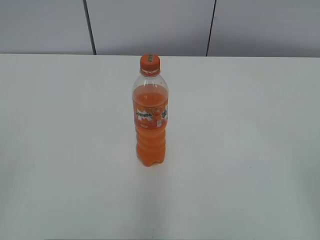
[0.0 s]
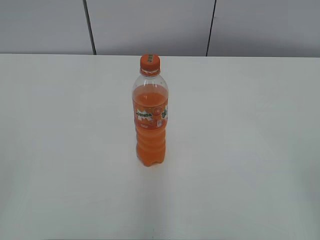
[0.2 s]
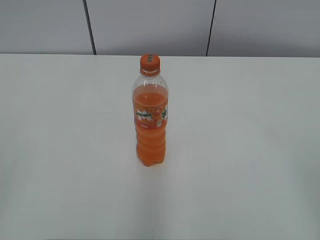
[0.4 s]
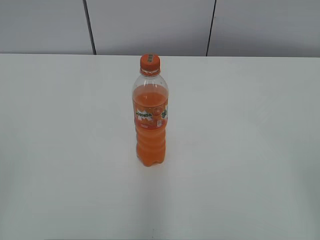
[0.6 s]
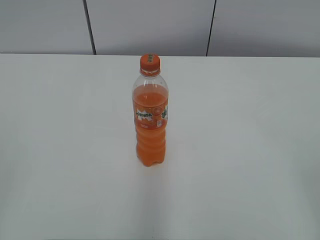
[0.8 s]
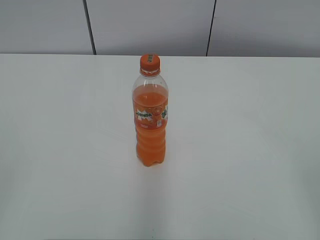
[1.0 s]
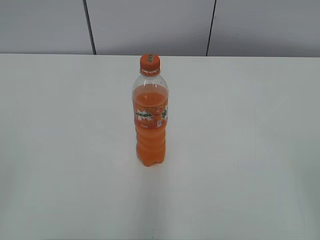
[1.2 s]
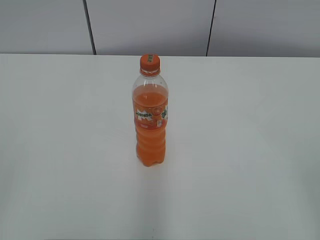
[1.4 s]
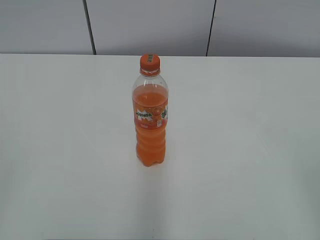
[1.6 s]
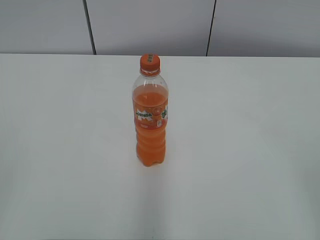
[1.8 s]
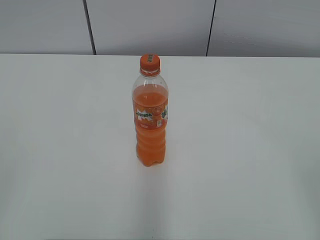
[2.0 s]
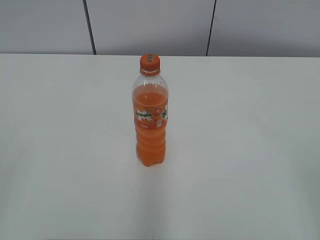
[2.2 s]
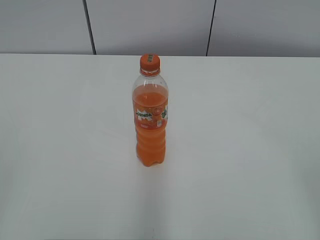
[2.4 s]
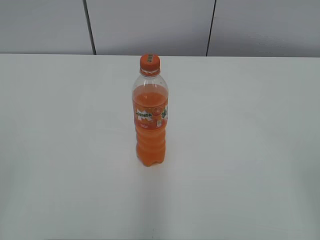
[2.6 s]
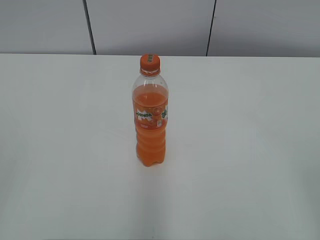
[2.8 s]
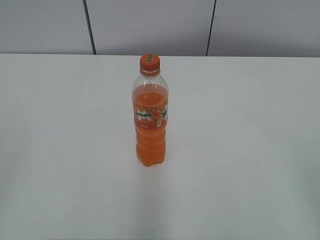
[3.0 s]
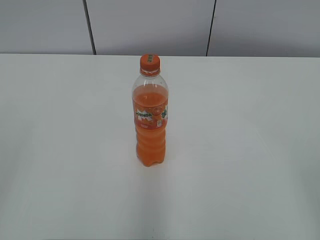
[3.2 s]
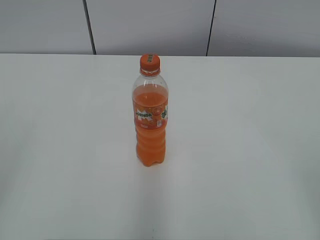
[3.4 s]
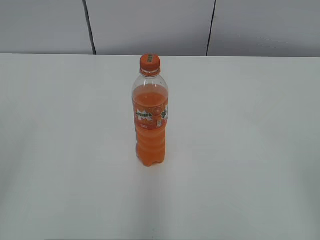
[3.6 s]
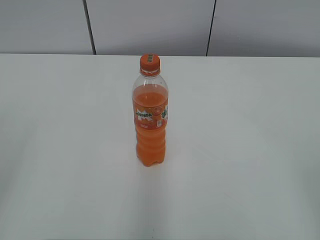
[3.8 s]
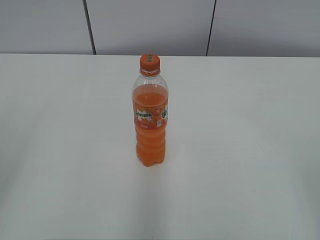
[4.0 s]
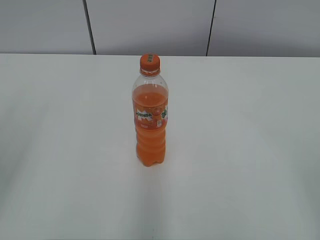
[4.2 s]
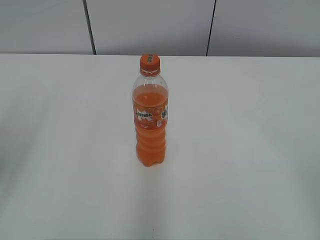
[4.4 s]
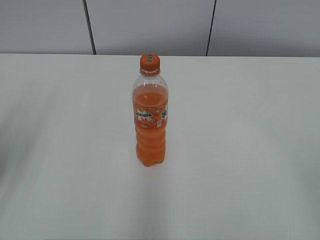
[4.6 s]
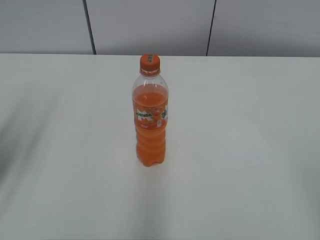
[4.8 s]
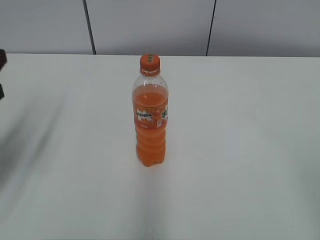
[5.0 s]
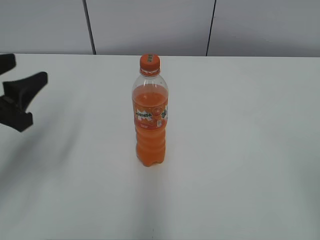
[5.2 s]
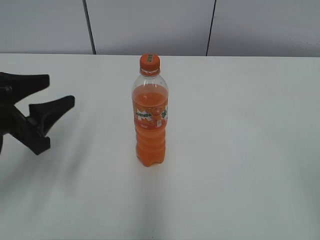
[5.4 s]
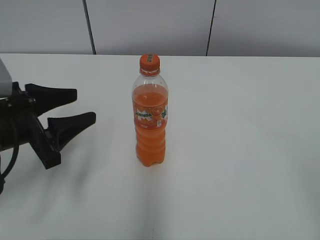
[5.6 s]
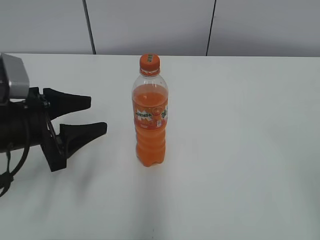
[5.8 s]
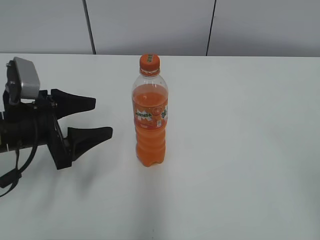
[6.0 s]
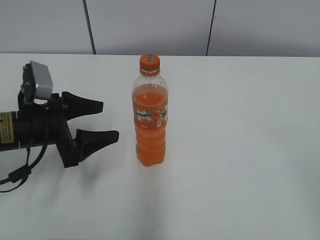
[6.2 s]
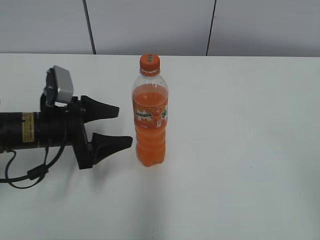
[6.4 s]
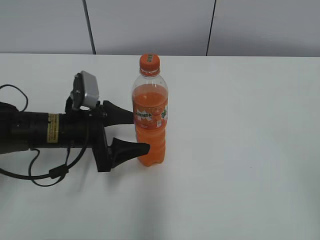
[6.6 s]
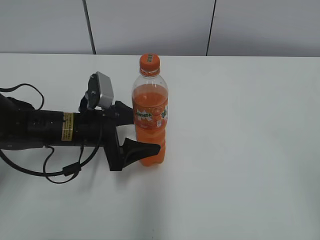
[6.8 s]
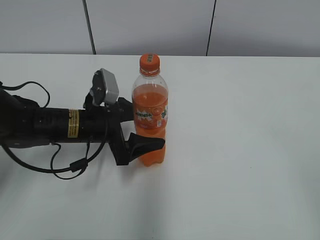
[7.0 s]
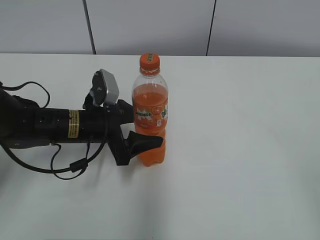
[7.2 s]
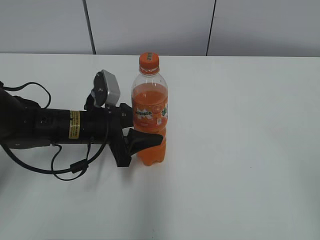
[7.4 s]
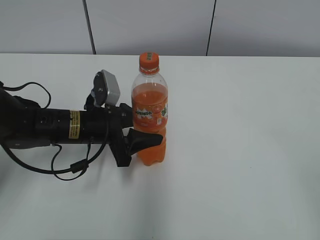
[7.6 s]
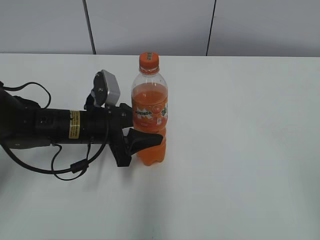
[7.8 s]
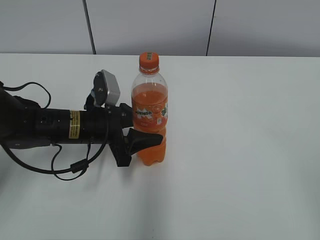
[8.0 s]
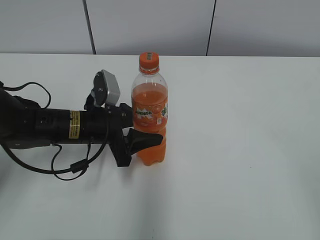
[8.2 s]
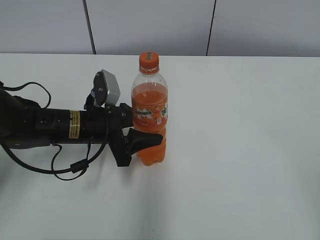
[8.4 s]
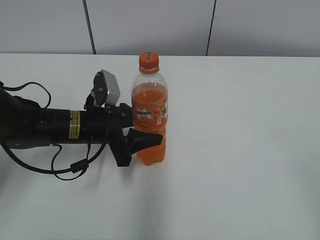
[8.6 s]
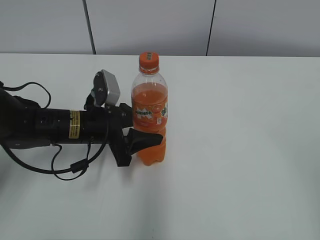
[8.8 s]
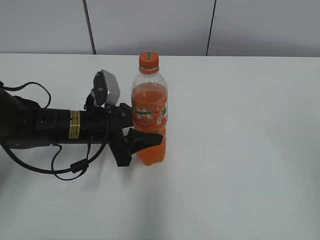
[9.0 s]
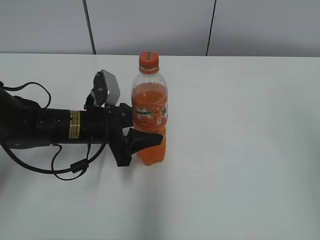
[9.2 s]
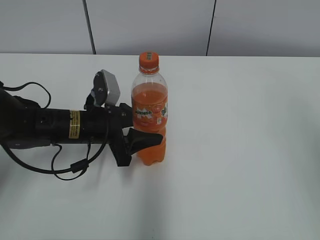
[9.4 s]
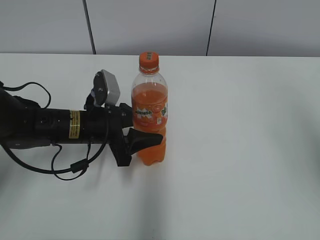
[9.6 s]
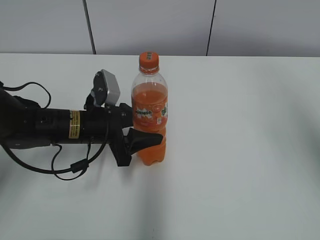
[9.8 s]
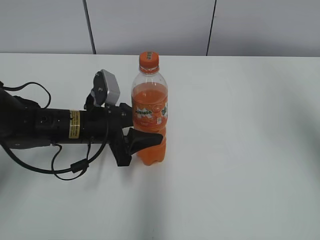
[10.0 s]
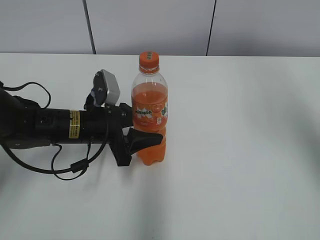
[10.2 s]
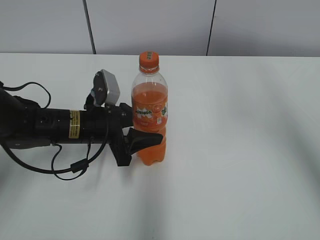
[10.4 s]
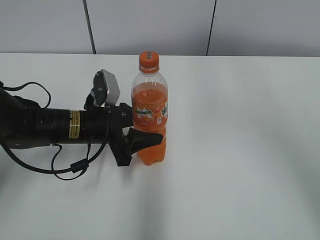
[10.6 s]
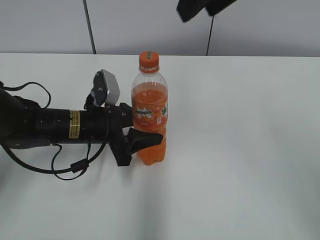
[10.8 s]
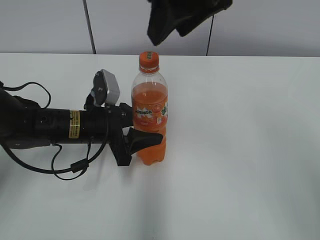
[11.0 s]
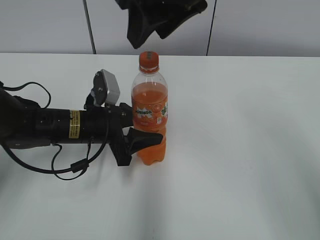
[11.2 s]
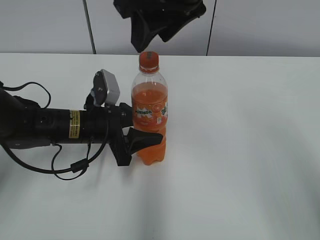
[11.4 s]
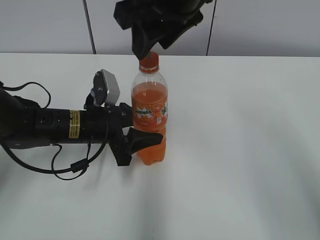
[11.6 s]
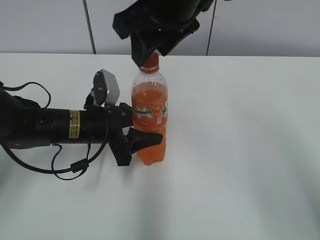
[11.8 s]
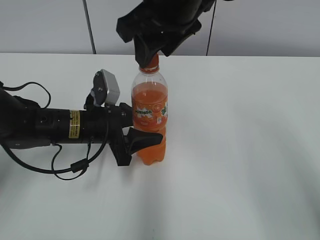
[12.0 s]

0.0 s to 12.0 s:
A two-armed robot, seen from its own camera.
Step, 0.0 to 7.4 s: Grab the Mirinda with the left hand.
4.4 to 6.0 s: The left gripper is displaced downward, forward and to the right by about 20 cm, and opens up.
6.0 to 7.6 s: The left gripper shifts approximately 10 cm to the right and forward, and closes up.
10.4 to 12.0 s: The right gripper is displaced to the left and downward by some 20 cm.

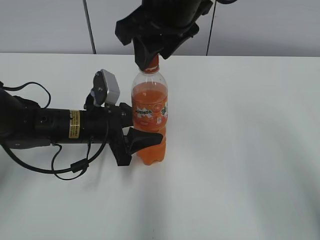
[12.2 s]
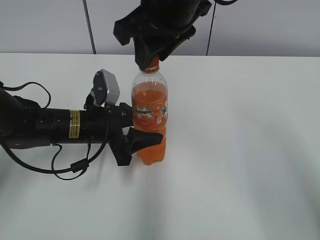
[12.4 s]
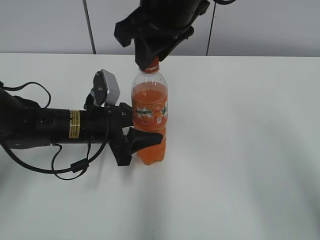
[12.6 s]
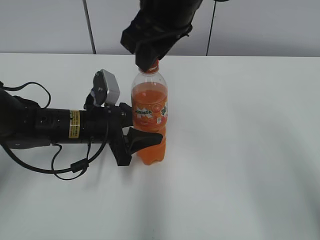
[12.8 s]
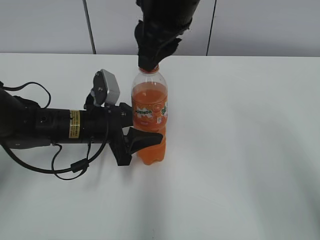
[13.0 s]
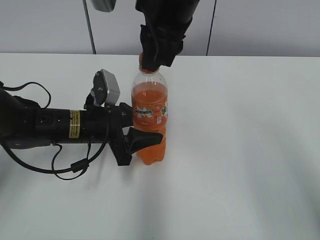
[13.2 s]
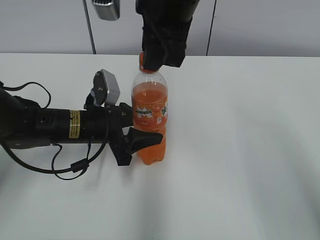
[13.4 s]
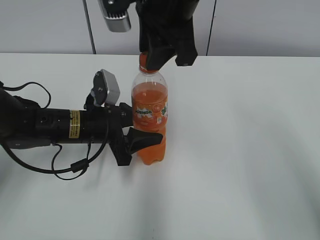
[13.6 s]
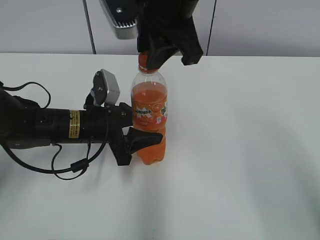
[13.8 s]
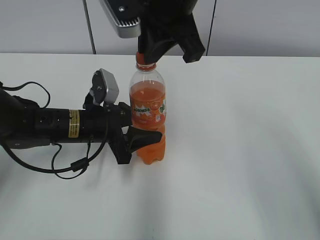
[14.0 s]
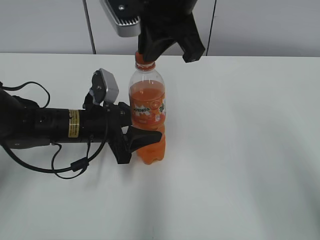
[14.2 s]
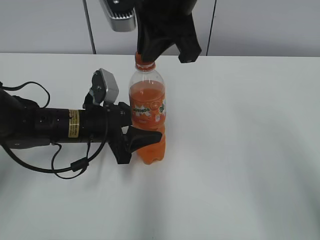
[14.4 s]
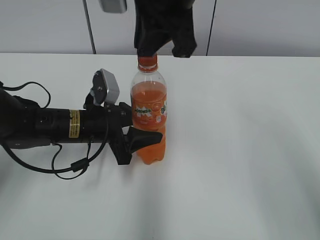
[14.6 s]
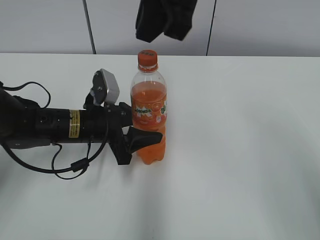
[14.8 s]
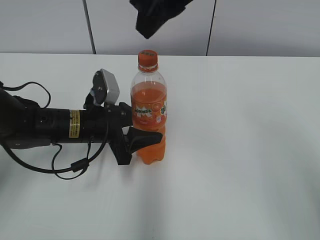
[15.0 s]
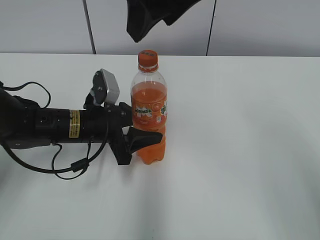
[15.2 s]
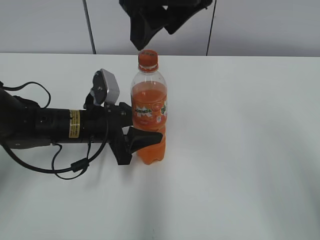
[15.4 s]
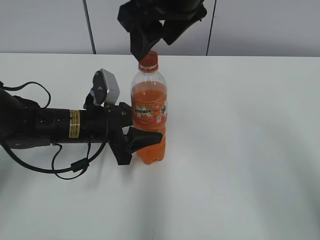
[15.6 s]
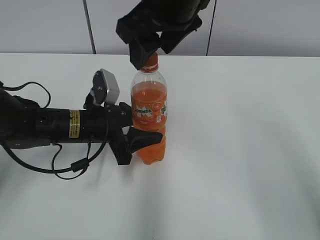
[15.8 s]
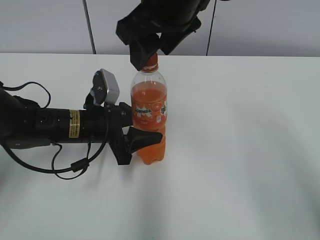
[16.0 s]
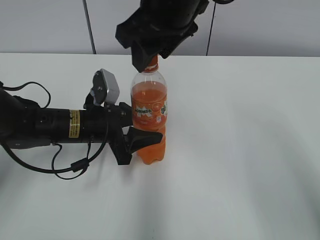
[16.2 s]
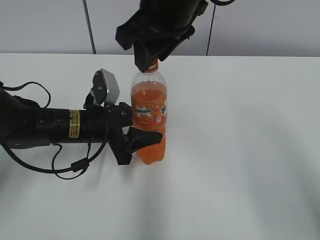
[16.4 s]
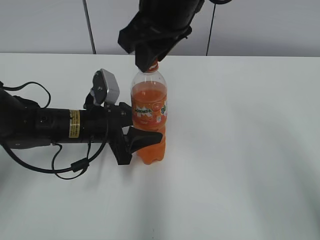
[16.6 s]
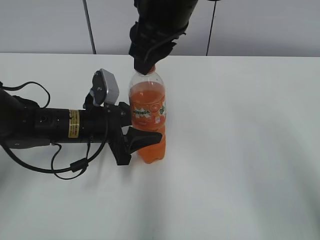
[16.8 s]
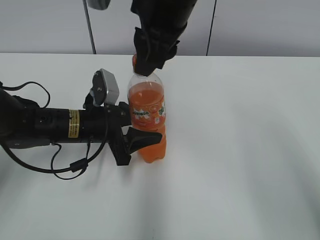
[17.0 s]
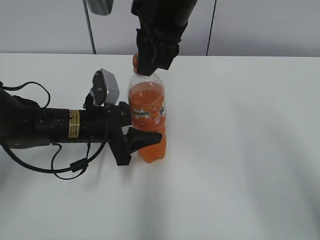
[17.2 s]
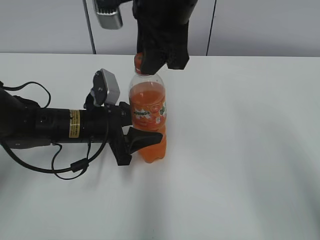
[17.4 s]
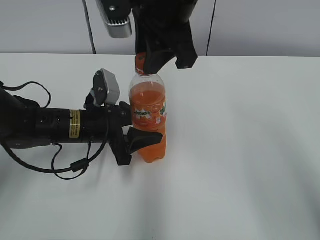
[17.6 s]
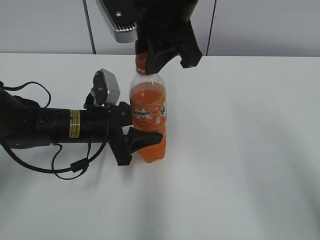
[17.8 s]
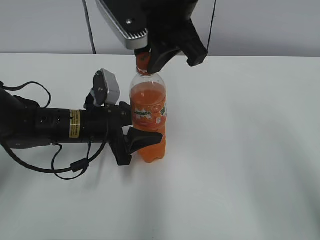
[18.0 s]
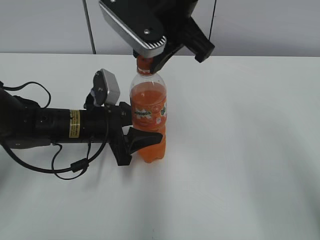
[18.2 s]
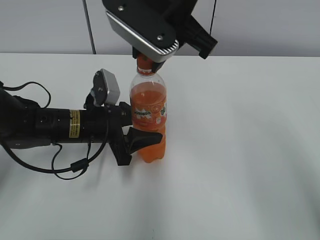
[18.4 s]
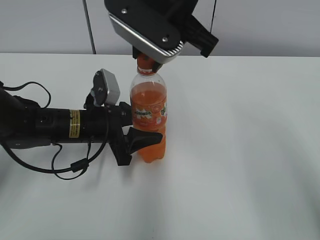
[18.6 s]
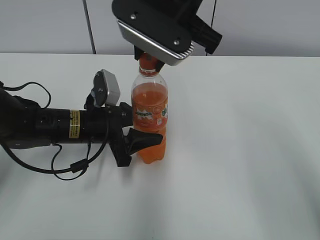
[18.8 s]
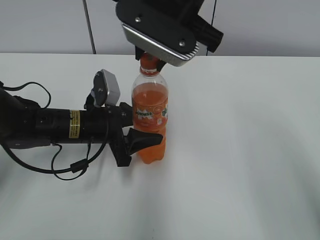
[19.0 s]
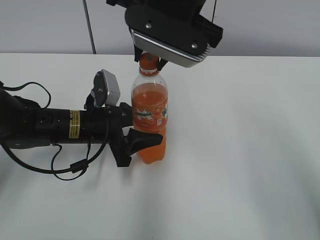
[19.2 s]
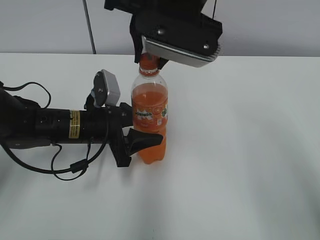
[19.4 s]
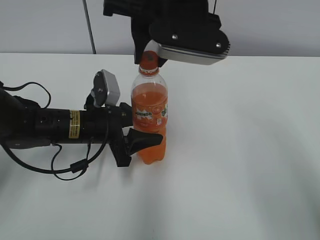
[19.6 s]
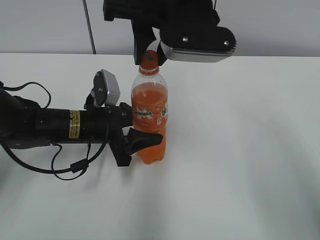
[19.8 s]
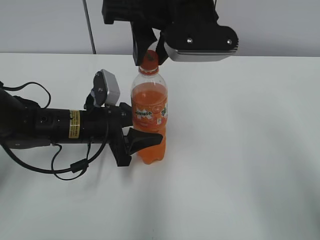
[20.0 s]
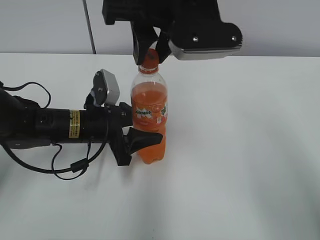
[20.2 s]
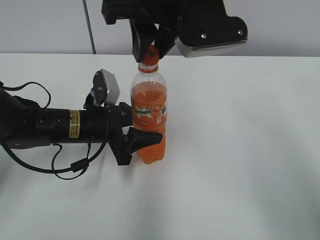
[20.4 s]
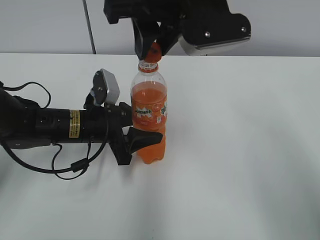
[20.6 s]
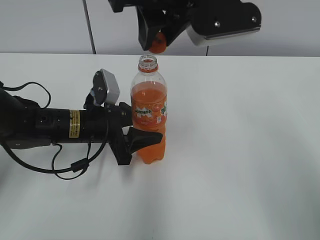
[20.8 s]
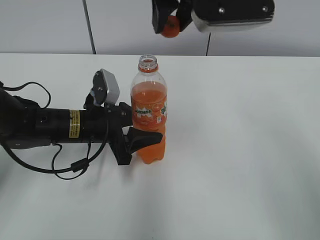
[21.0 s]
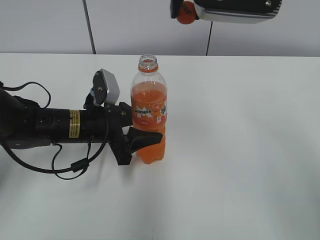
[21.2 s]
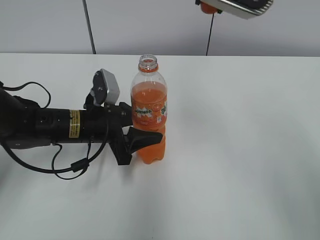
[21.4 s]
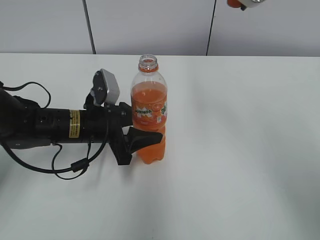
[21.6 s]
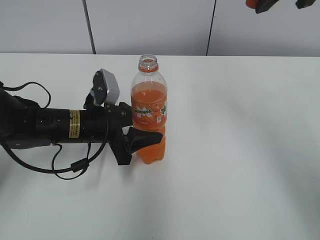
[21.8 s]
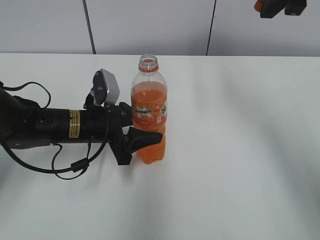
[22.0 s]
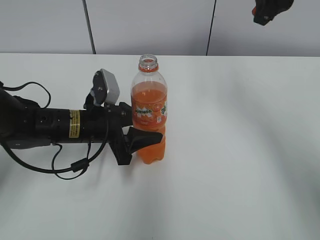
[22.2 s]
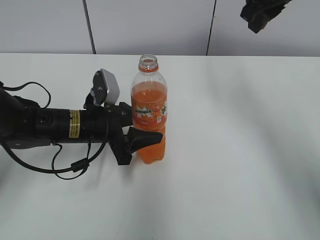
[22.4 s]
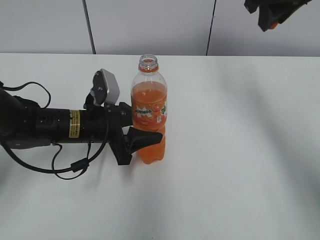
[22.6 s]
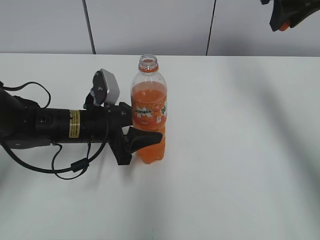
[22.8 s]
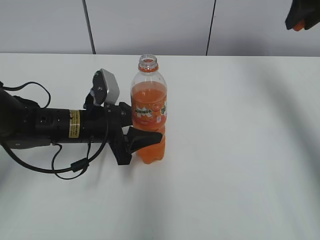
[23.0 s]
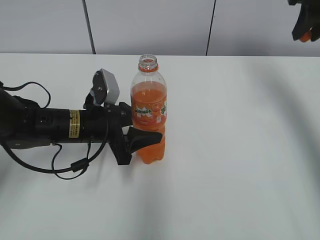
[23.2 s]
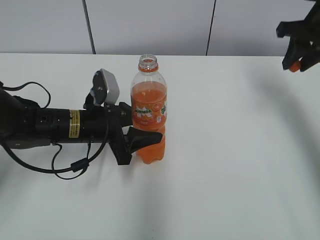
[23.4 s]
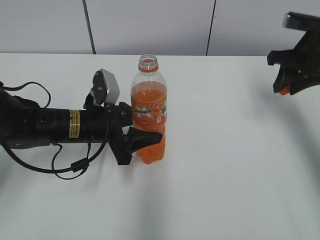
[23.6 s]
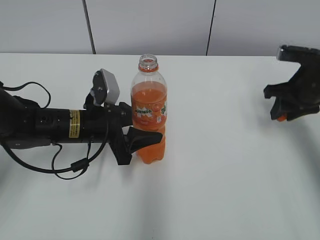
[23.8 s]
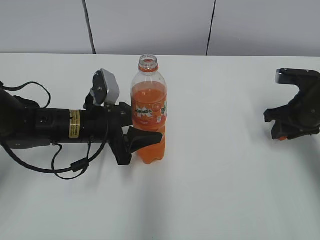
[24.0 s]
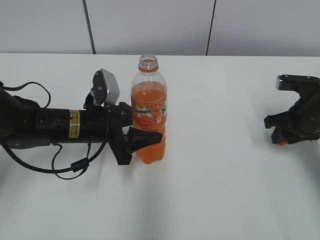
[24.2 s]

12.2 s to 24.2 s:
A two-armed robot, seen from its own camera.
13.8 to 15.2 s: The right gripper travels upward by roughly 5 cm, and opens its fingers.
15.2 to 16.6 s: The right gripper travels downward by roughly 5 cm, and closes.
19.8 to 21.2 s: The right gripper shifts roughly 5 cm upward.
21.2 to 22.6 s: The right gripper heads to the right and forward, covering approximately 15 cm.
22.6 to 24.2 s: The right gripper moves downward and to the right, about 25 cm.
